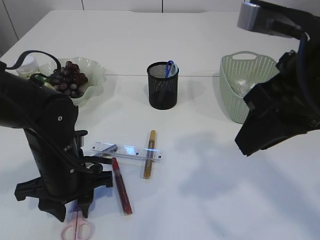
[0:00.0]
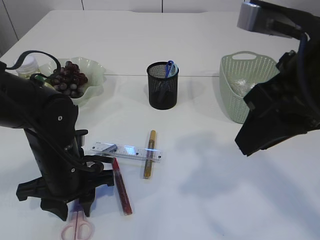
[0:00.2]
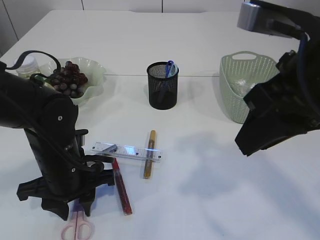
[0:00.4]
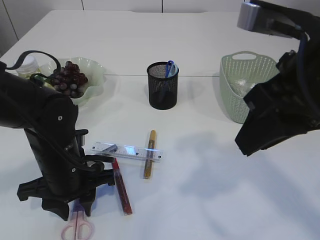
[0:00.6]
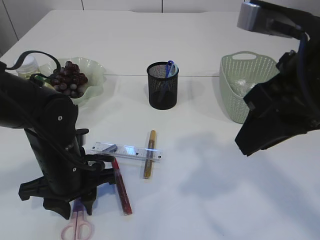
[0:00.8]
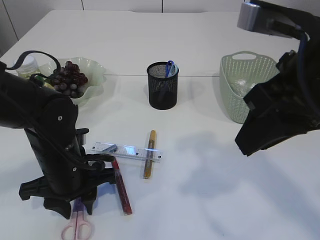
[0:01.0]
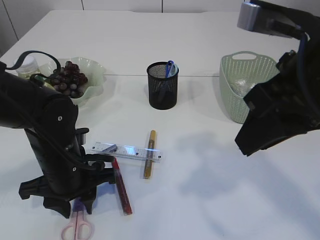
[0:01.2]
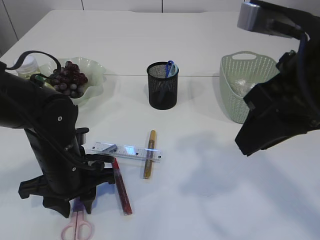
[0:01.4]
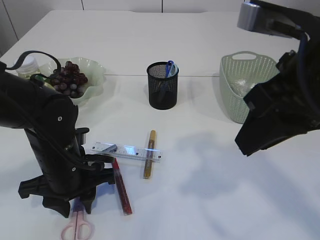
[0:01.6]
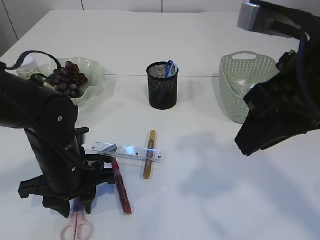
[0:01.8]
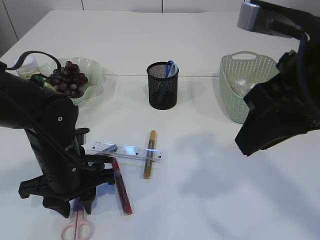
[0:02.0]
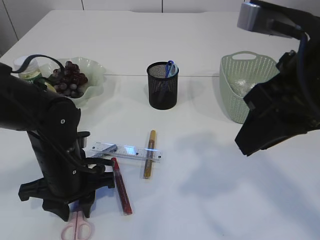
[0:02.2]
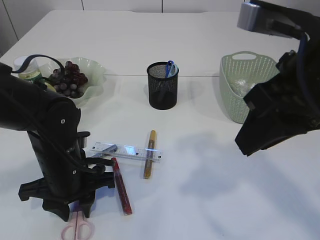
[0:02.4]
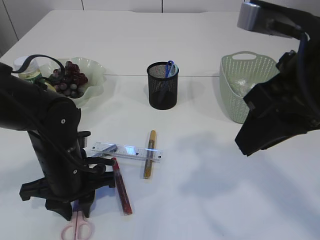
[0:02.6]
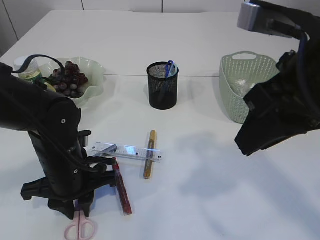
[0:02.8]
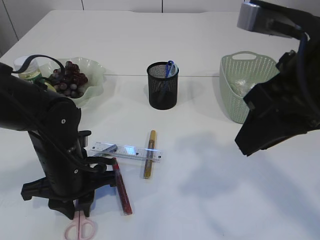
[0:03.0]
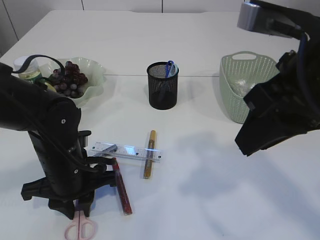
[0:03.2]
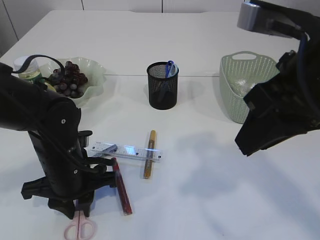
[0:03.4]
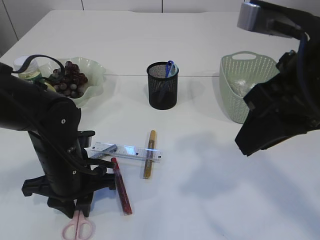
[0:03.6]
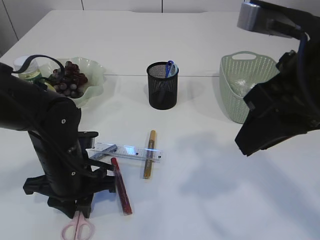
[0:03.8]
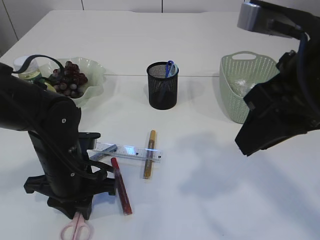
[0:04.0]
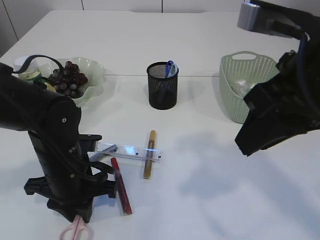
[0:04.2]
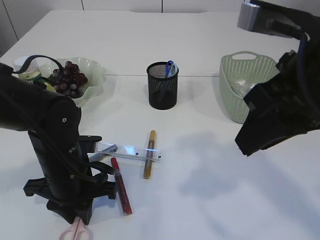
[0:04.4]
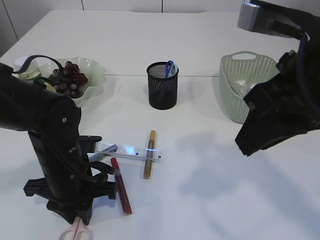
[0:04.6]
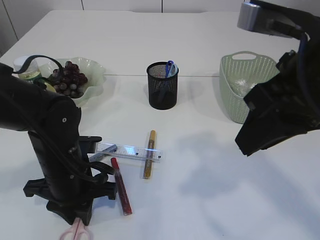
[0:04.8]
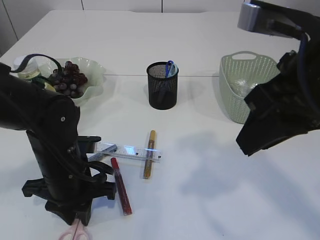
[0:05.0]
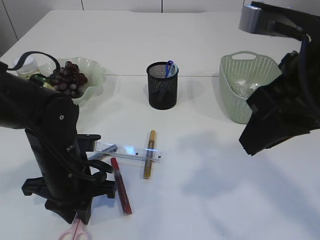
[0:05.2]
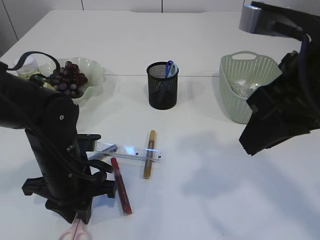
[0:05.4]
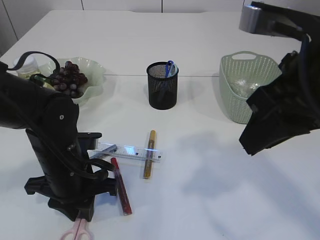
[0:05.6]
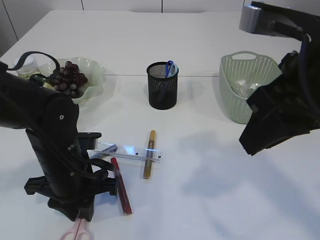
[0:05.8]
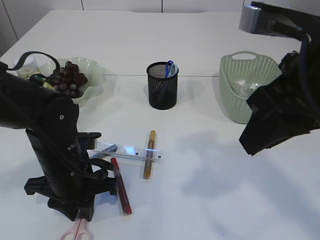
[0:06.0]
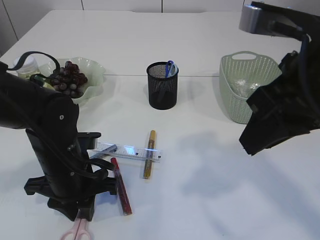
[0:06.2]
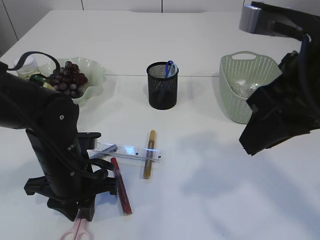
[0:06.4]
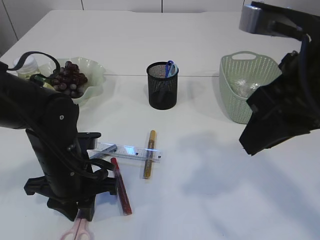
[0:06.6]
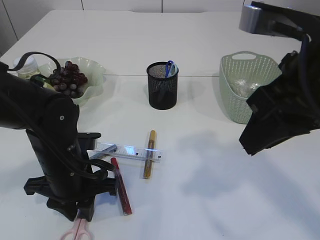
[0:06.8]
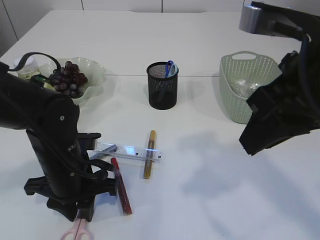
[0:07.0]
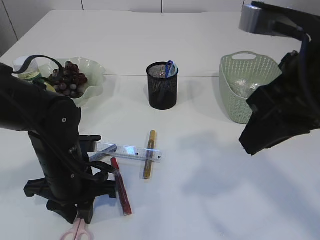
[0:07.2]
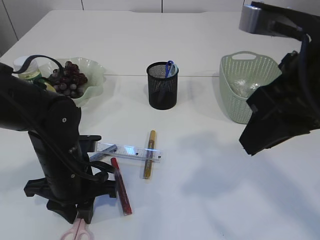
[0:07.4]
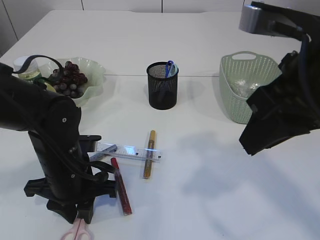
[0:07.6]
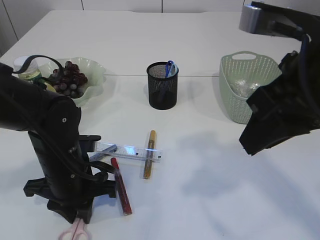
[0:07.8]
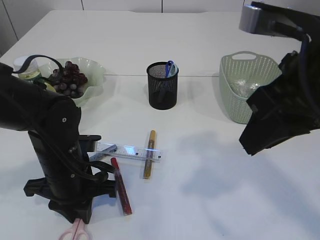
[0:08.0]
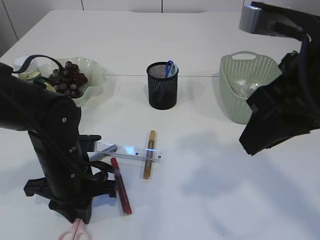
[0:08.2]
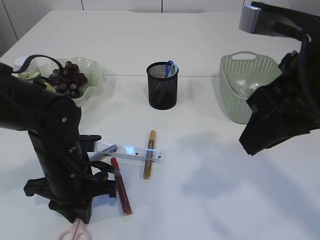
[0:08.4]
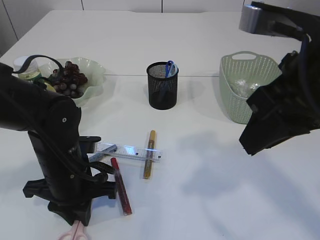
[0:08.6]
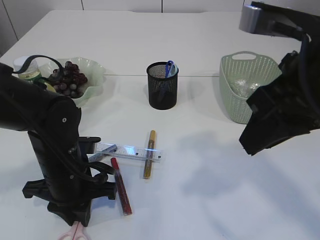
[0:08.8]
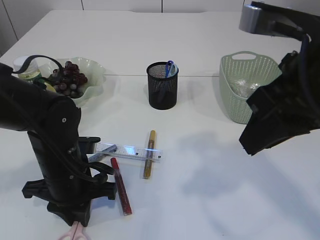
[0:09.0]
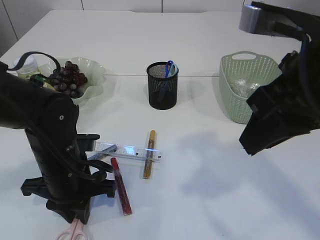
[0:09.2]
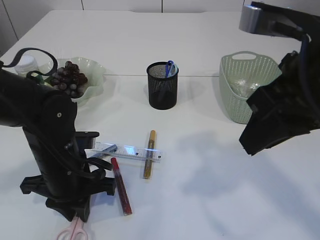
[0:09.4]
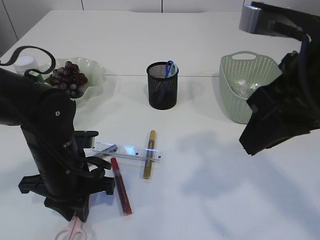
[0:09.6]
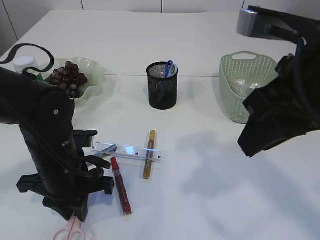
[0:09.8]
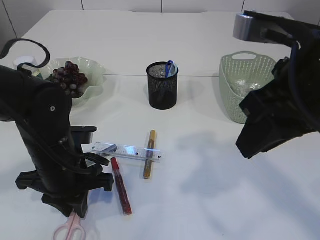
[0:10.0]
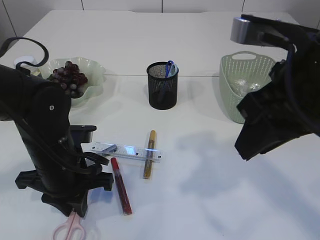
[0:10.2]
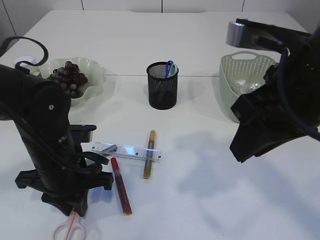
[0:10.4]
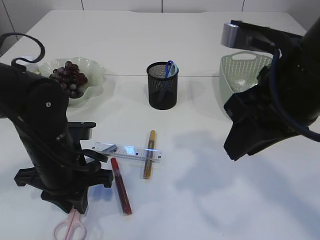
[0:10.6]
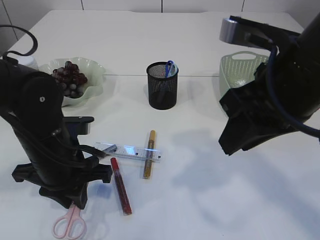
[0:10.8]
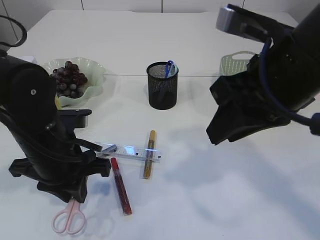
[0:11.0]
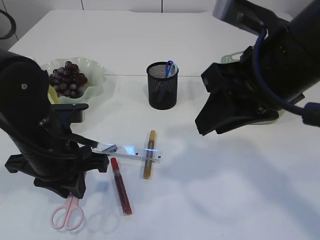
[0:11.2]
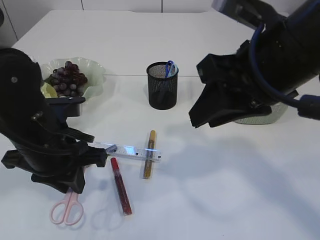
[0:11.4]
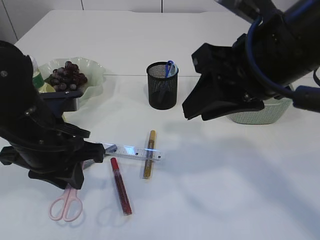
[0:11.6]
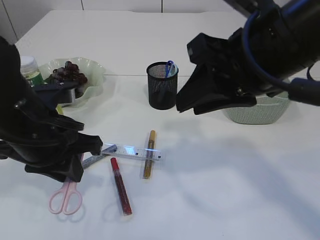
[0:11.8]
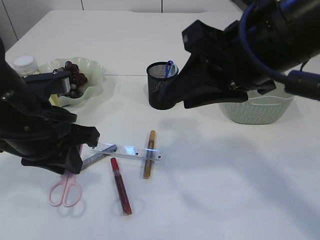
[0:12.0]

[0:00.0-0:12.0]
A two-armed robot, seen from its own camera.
Step, 0:00.0 to 0:11.6: pick up the pink scissors.
0:00.0 to 0:03.0: Both grippers stay about where they are.
0:03.0 to 0:04.4: There are only small adjustments of the grippers.
0:04.4 to 0:09.0: The two grippers keep their place.
0:09.0 to 0:10.4: The grippers make only small movements.
0:10.4 to 0:12.0: The left gripper is displaced upward by approximately 10 cm.

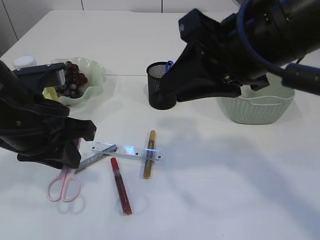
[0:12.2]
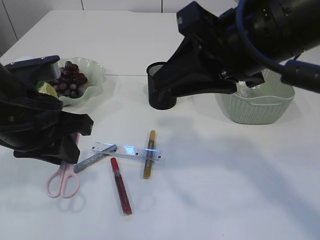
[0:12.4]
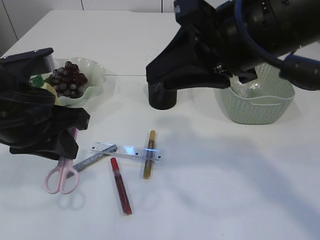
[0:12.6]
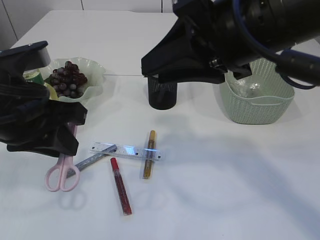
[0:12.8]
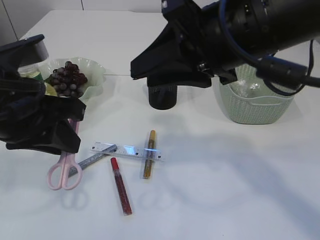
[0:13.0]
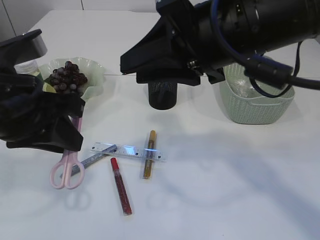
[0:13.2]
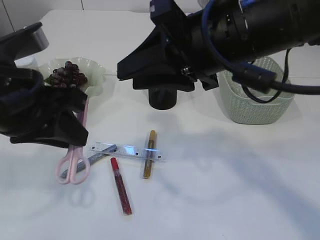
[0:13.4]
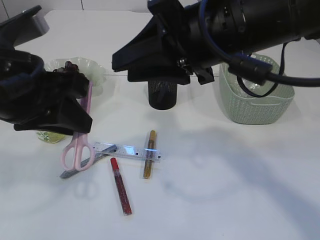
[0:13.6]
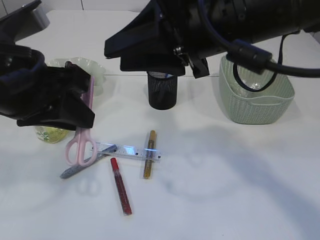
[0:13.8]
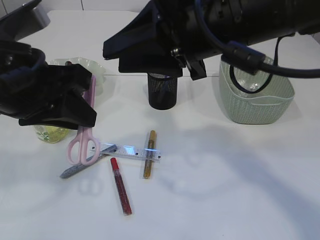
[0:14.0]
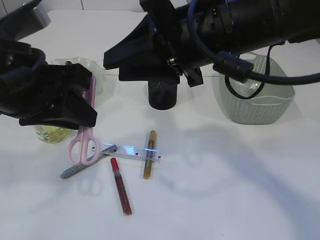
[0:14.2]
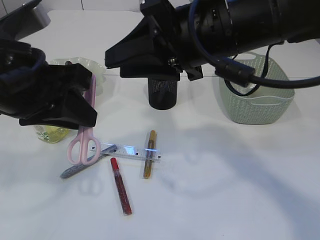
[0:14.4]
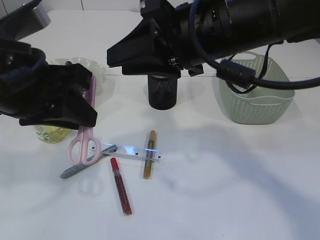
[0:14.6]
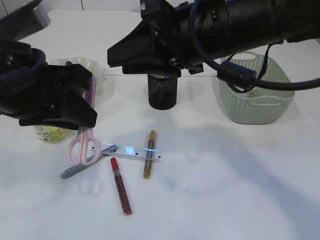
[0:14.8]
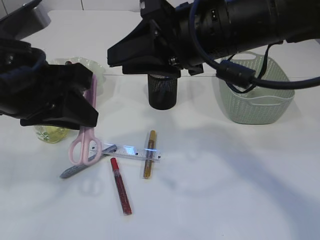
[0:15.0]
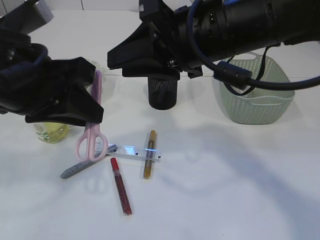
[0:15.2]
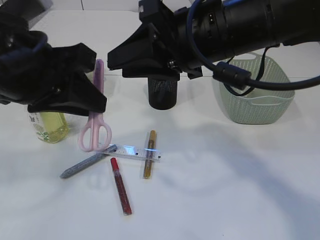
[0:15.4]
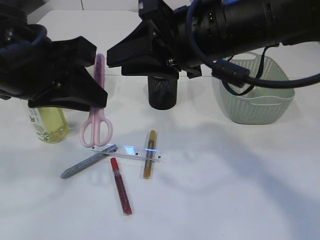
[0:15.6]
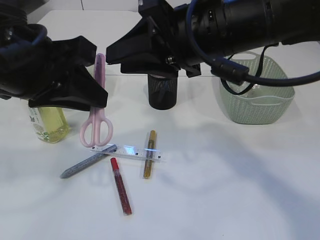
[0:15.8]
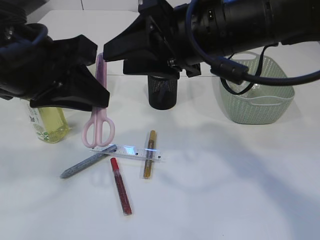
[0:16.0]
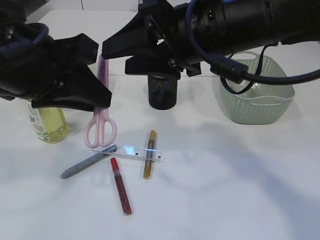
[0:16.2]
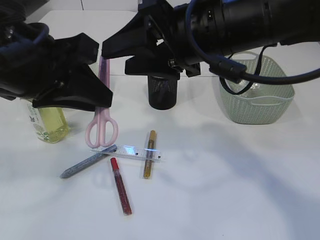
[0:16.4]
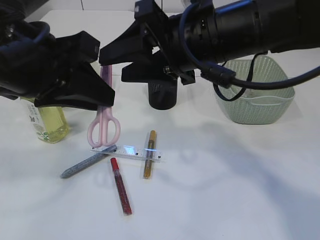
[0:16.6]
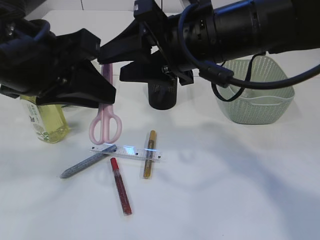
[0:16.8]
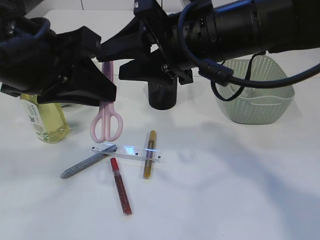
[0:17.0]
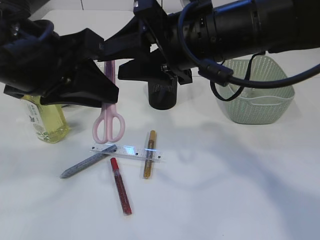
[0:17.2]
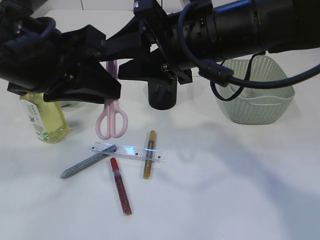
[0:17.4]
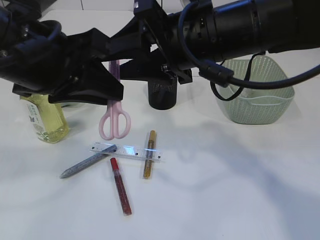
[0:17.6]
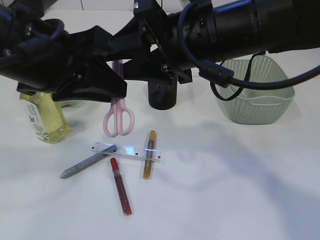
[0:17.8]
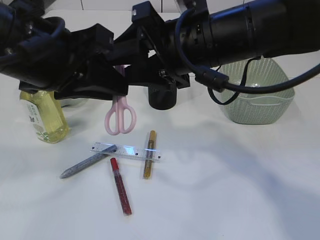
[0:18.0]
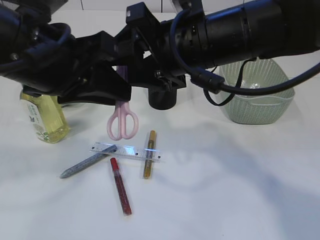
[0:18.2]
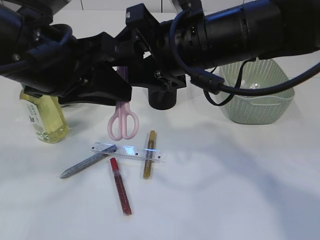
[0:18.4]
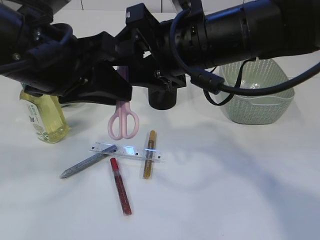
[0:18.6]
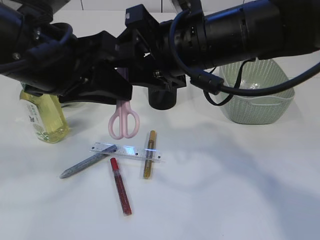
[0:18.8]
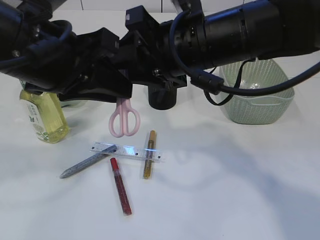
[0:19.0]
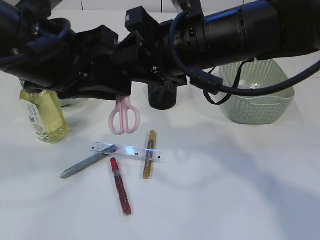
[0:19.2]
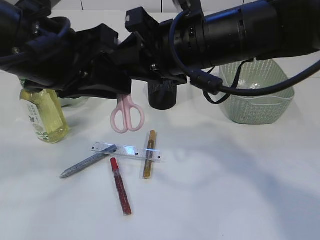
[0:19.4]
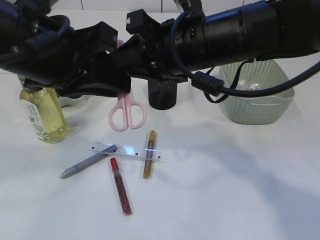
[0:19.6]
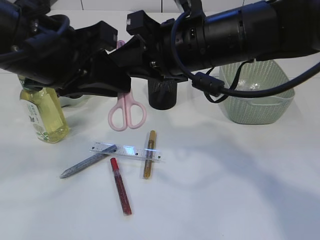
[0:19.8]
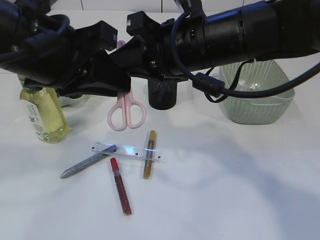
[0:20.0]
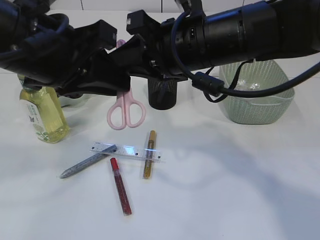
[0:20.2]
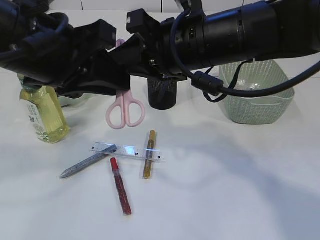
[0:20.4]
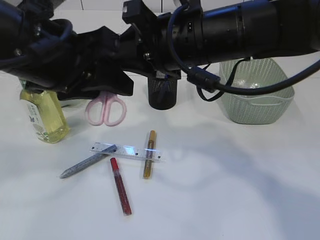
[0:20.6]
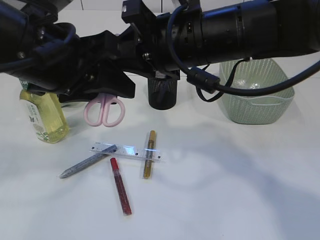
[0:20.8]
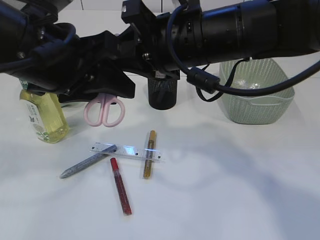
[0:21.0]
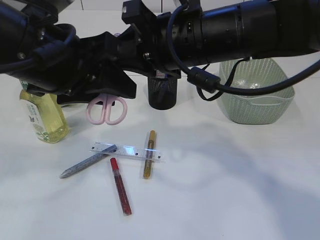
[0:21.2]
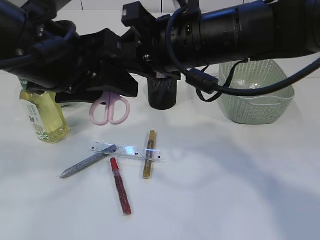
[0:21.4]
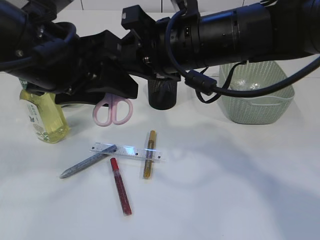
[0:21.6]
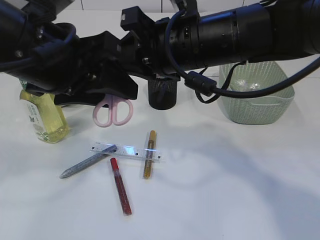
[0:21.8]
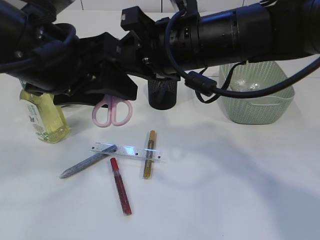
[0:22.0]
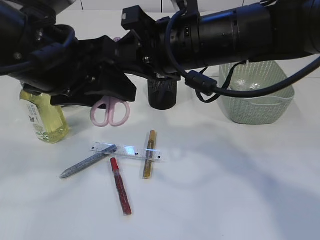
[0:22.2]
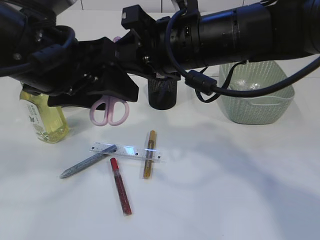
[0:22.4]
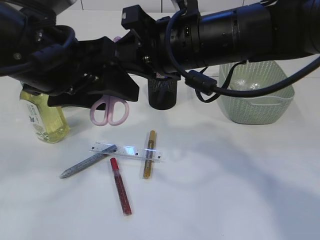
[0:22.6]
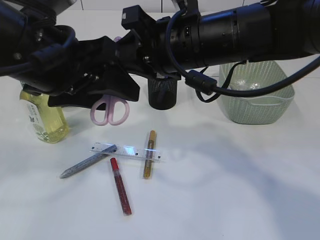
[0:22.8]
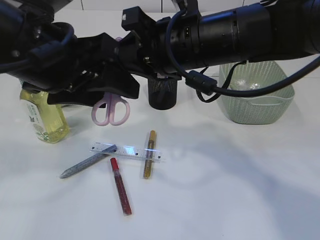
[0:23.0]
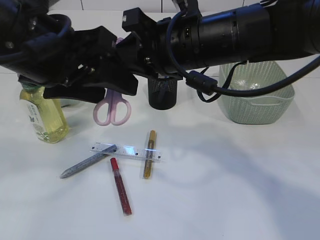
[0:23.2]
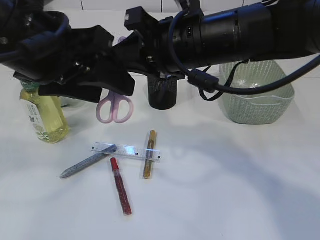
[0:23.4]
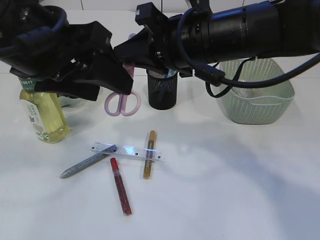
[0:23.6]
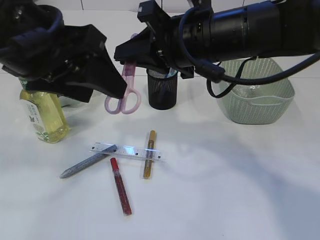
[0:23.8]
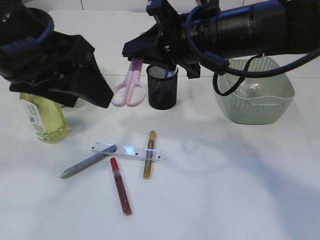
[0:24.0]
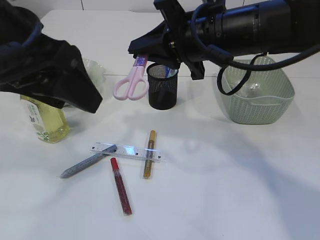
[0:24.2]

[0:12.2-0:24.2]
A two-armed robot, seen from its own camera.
0:12.2 to 0:13.8: The left gripper heads upward, covering approximately 5 cm.
0:13.8 to 0:18.2: The grippers move only a little.
0:18.2 to 0:19.8: The right gripper closes.
0:19.8 to 0:21.2: Neither gripper changes place.
0:21.2 to 0:22.6: Neither gripper changes place.
0:22.6 to 0:24.2: There are only small adjustments of the grippers.
